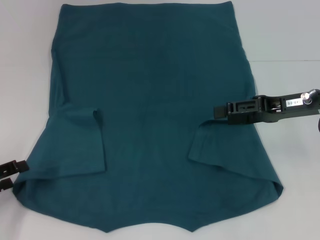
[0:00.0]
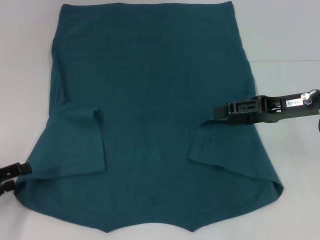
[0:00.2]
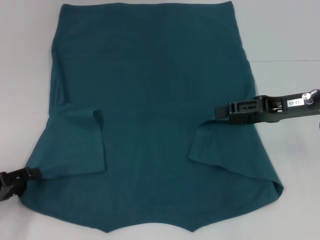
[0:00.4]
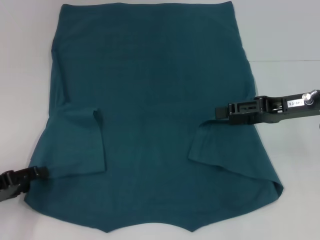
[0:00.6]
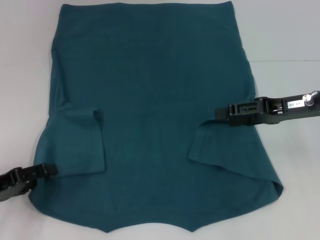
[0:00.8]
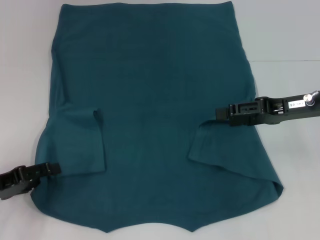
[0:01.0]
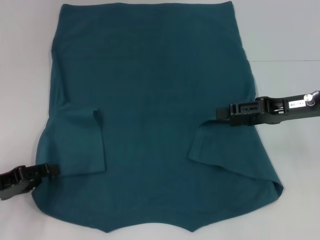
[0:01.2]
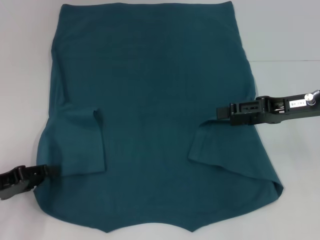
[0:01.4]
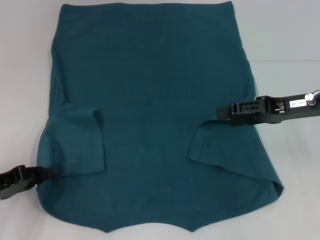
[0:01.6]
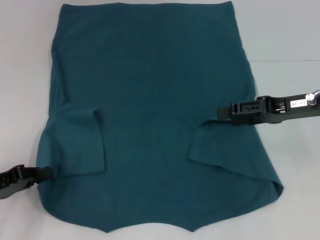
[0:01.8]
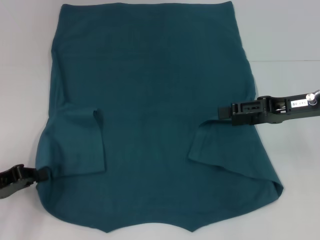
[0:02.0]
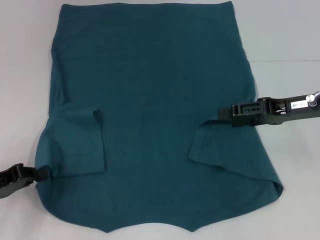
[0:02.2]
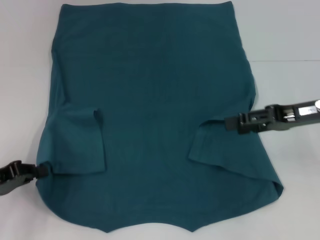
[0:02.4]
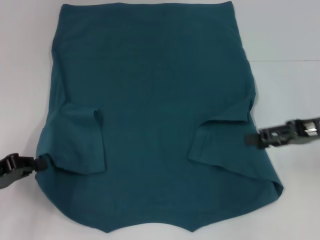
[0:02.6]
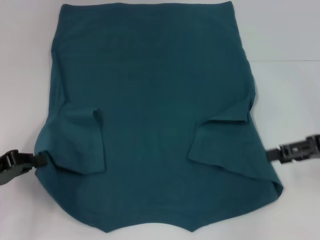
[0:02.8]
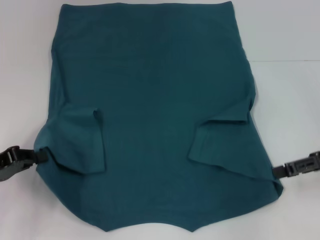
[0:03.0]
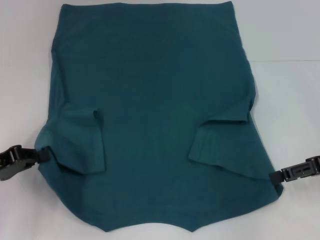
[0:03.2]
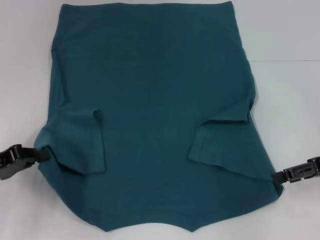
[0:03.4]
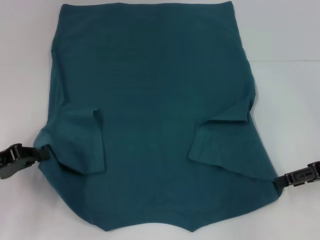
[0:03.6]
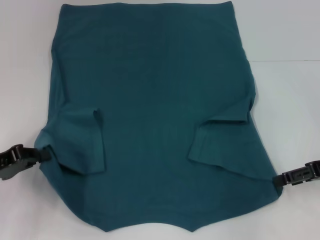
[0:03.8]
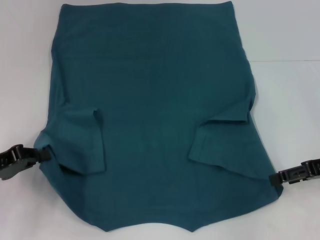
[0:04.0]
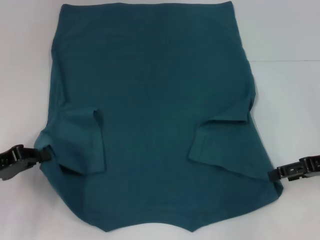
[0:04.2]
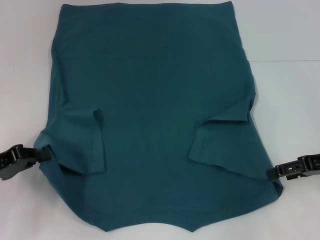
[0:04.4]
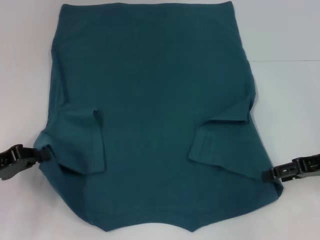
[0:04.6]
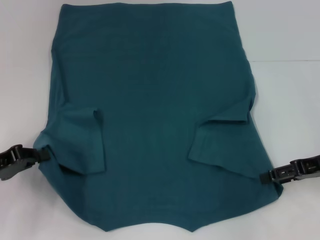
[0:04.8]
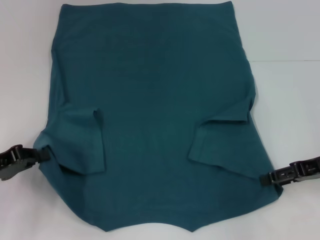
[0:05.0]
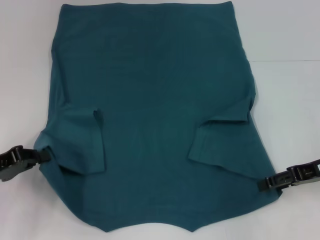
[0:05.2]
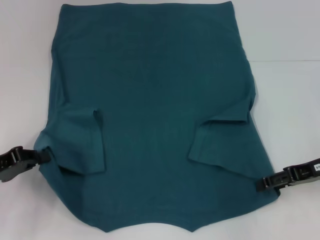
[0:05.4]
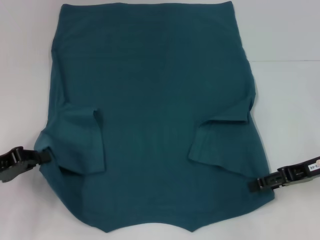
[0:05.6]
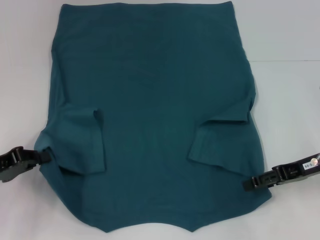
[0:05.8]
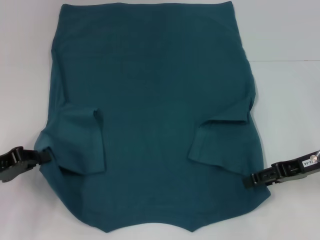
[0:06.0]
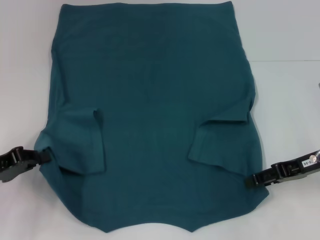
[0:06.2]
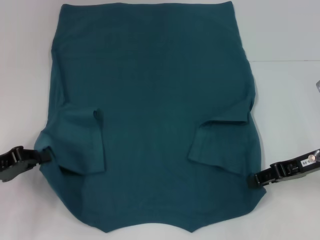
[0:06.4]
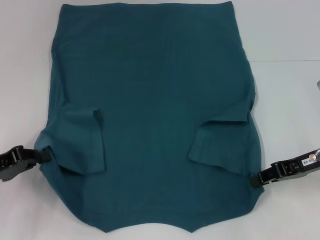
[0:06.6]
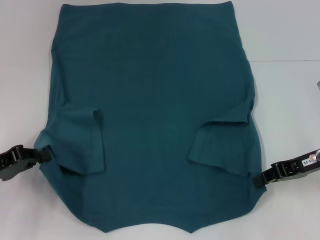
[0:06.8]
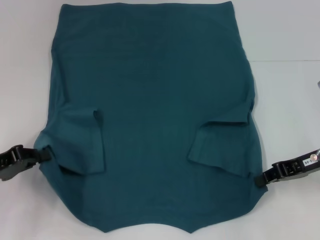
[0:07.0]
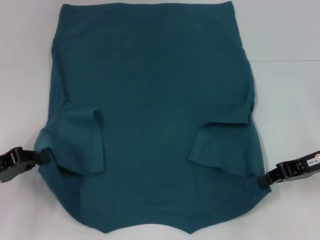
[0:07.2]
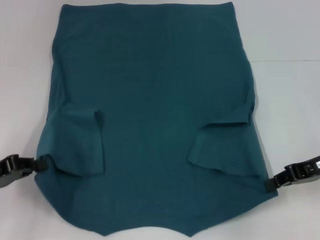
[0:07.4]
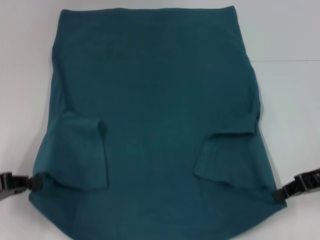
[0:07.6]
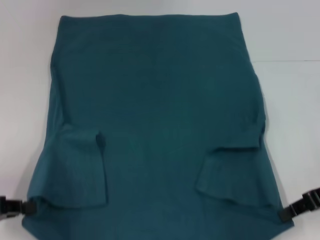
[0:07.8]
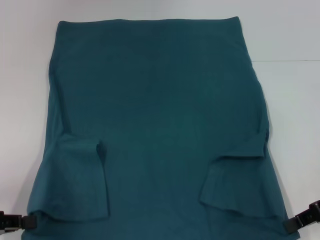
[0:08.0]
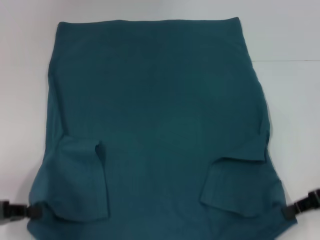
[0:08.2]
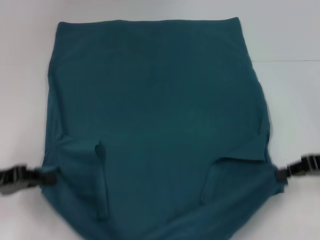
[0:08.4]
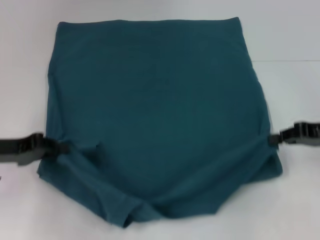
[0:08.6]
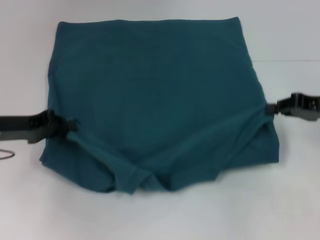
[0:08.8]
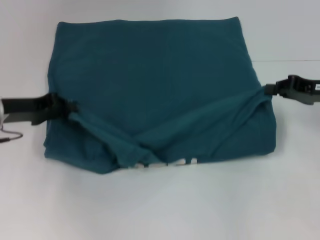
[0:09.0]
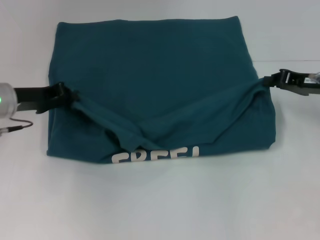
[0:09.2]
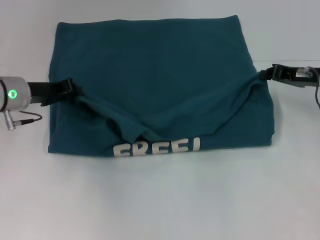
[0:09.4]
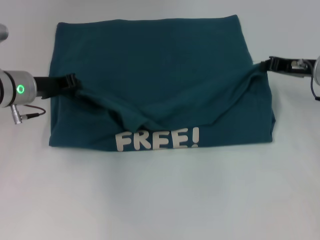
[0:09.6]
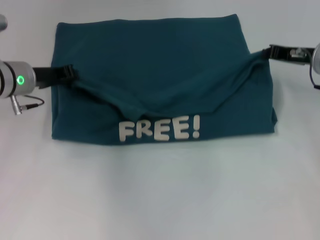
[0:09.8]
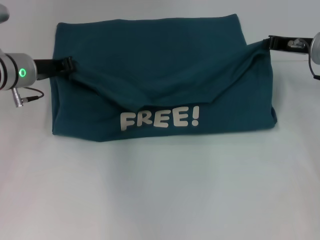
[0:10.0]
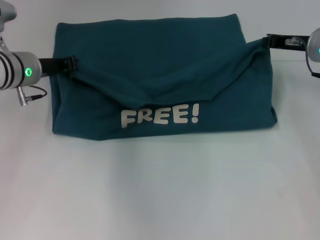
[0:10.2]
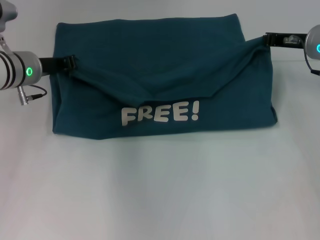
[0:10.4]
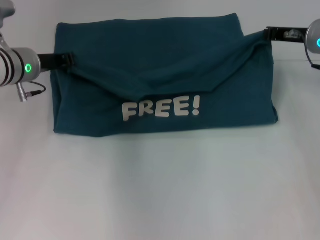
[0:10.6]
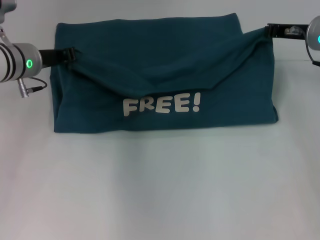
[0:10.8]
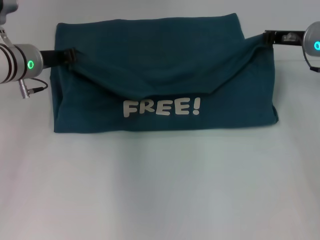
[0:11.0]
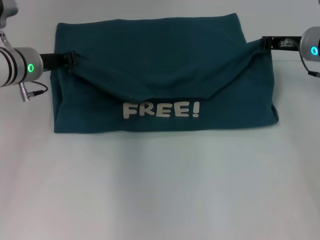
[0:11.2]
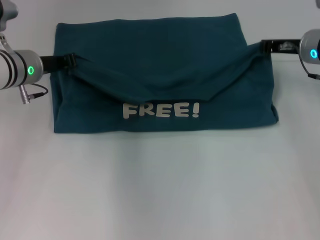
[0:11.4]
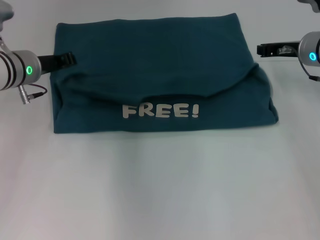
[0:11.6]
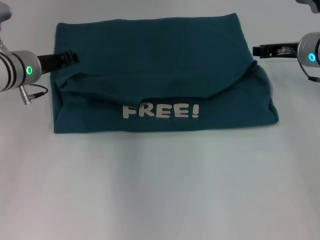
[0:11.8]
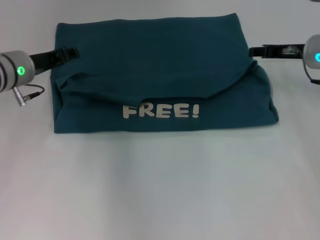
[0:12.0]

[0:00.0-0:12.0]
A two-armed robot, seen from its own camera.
Step, 0.0 to 2.4 s: Grab the bottom left corner with your left hand.
Step, 2.6 to 7.0 s: Grab the bottom right corner with your right hand.
0.0 to 1.6 s: The grippers make only small movements.
1.6 to 3.0 s: The left gripper closes up. The right gripper moves to the right, about 5 cm.
3.0 to 6.0 s: The grippers stay close to where they were, moving slightly.
6.0 to 7.6 s: The right gripper closes.
7.6 to 9.0 s: The left gripper travels forward and to the right by roughly 15 cm. Meanwhile the right gripper travels forward by about 5 cm.
9.0 to 10.4 s: The right gripper shifts roughly 10 cm forward and to the left. The left gripper heads forward and to the right, covering some 10 cm.
10.4 to 12.0 s: The right gripper opens its fingers.

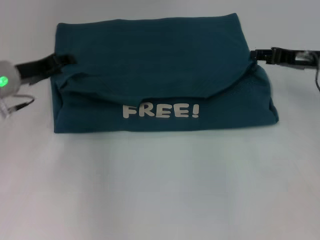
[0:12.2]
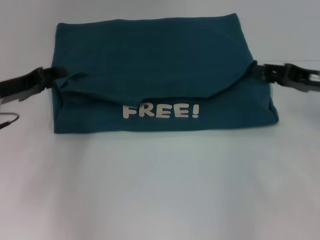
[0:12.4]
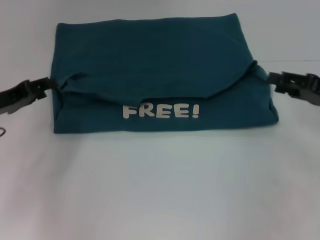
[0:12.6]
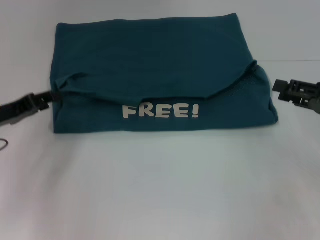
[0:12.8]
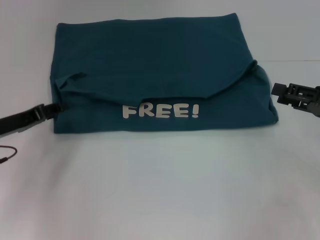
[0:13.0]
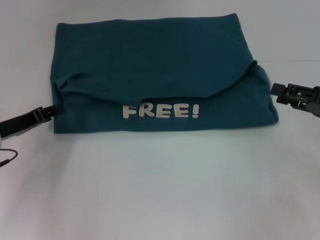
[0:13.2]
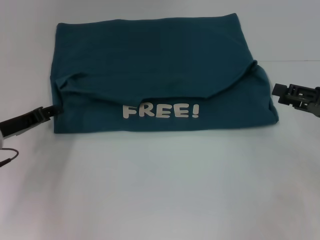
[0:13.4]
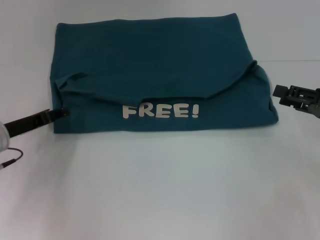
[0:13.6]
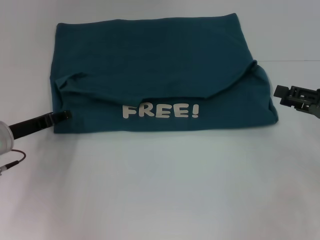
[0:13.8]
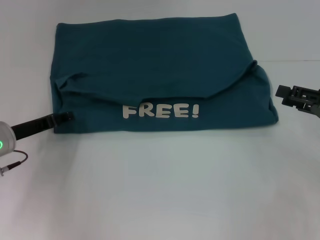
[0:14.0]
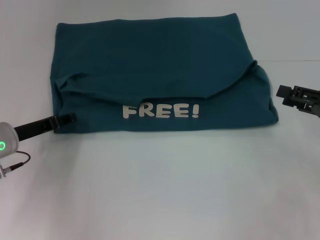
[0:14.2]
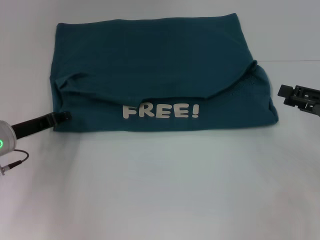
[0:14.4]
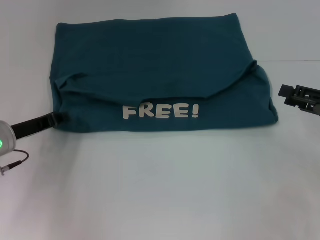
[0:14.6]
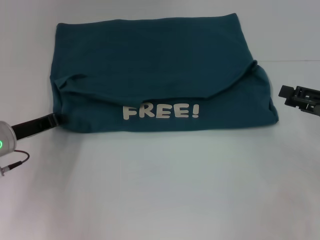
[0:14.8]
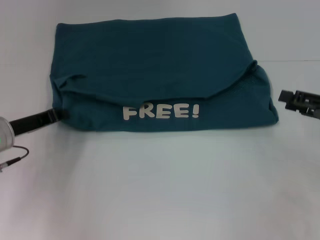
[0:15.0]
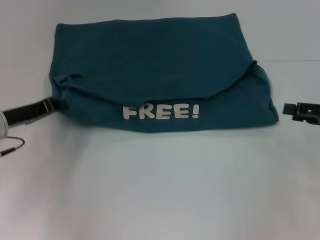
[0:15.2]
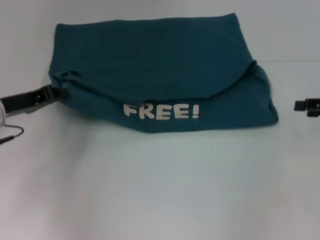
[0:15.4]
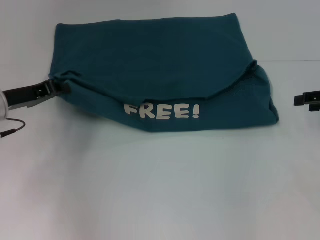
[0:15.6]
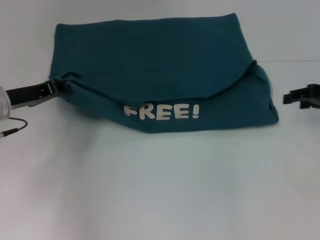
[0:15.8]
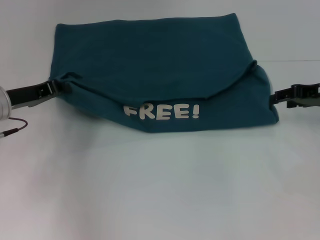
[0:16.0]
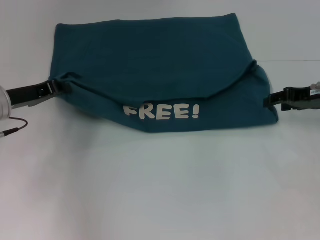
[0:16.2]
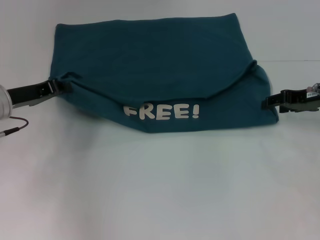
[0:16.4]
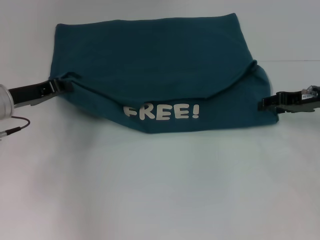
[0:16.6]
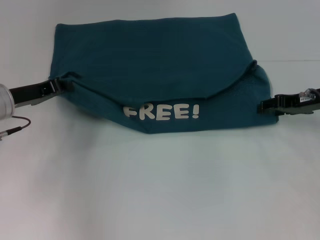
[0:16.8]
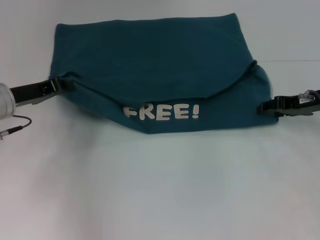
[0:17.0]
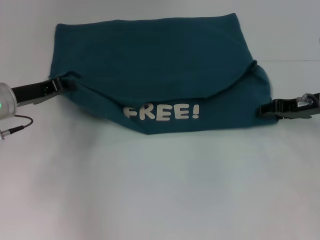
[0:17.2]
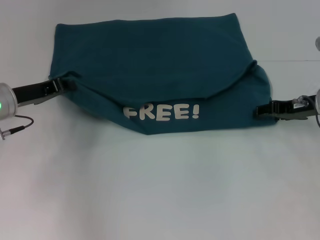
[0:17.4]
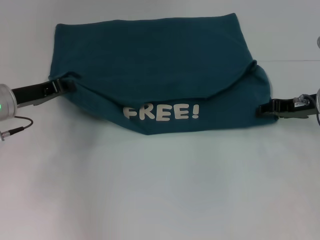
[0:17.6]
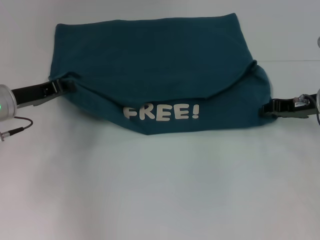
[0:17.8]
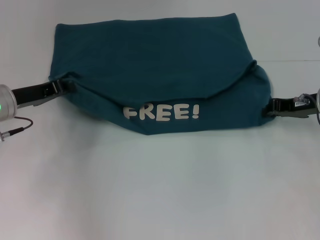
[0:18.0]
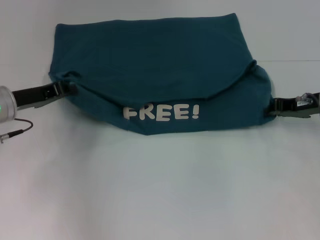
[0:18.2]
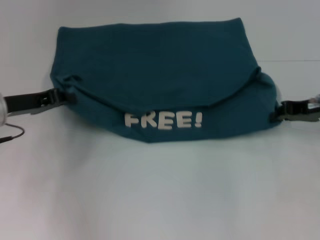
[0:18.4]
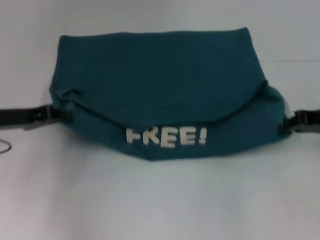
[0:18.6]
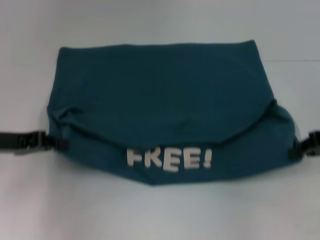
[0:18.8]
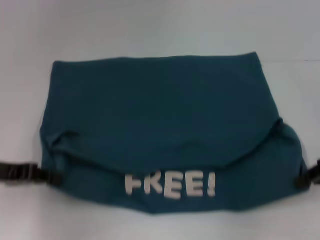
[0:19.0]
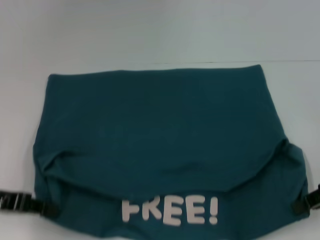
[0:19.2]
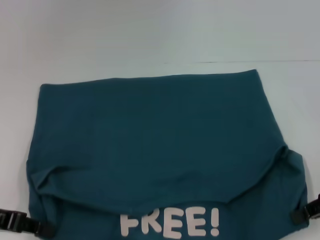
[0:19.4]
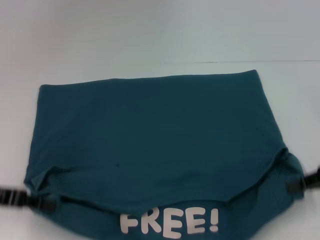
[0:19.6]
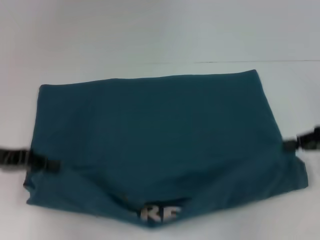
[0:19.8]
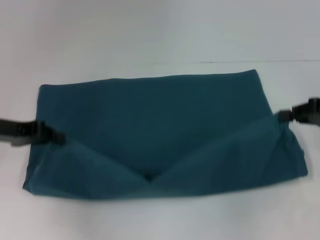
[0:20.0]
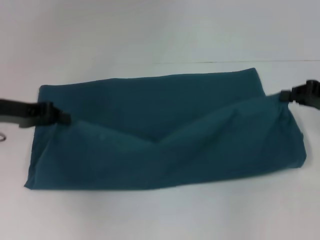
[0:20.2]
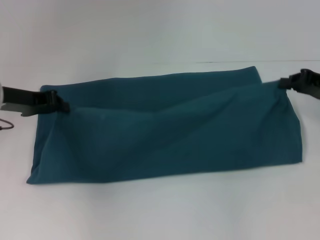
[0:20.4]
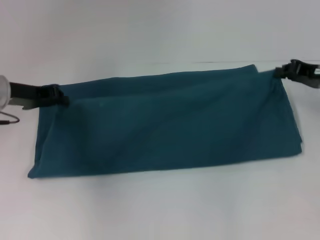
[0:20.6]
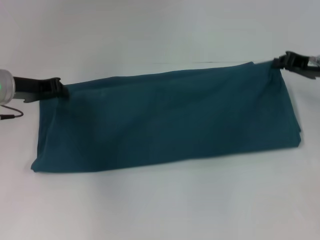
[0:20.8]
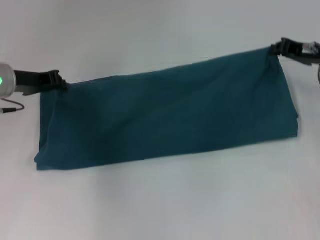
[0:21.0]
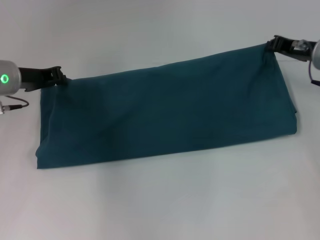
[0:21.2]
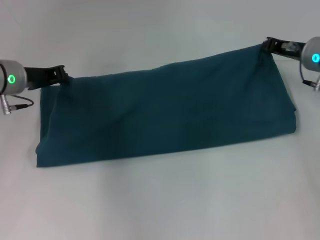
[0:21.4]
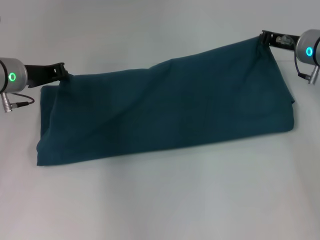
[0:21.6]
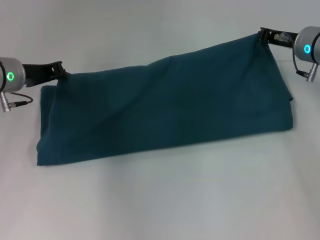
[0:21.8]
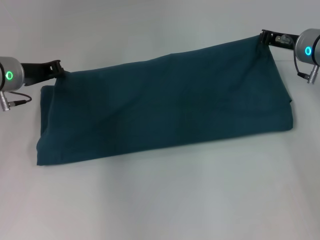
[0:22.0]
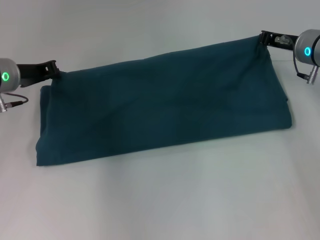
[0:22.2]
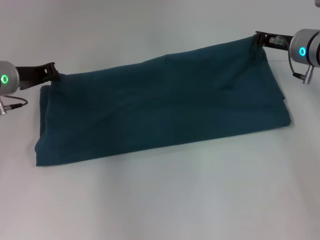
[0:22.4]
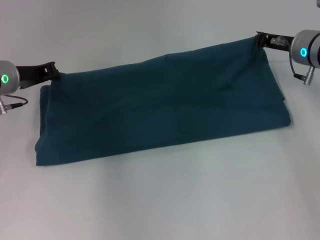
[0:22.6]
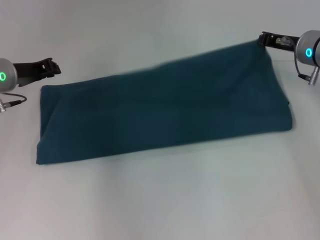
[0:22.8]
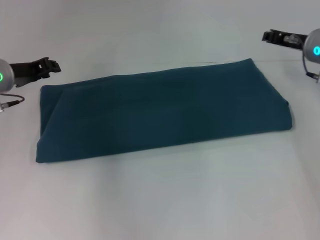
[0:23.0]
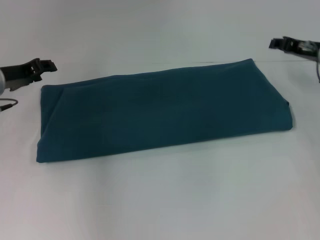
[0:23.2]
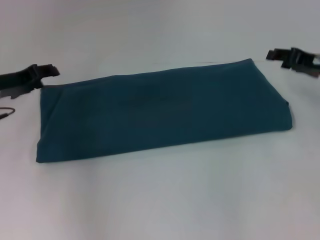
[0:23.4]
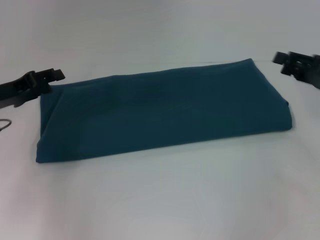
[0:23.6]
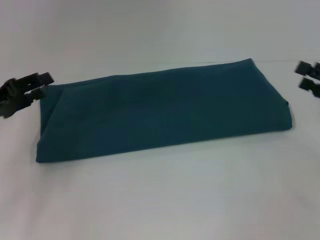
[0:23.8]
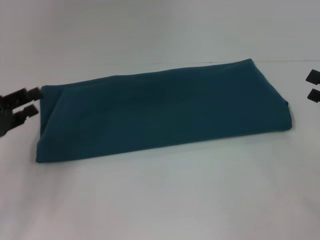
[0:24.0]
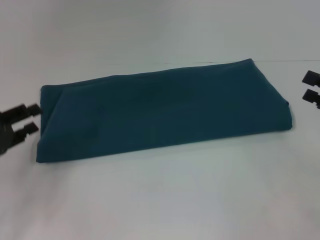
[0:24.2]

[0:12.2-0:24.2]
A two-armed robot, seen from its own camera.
Step, 12.6 to 19.2 s: Pull the clothes with your left hand.
Step, 12.6 to 19.2 s: Pull the clothes with your right hand.
Step, 19.4 to 23.6 s: Fold the clothes to the right.
12.2 to 13.8 s: The left gripper moves downward and backward, about 10 cm; the right gripper is displaced backward and to the right by roughly 10 cm.
13.8 to 15.2 s: The left gripper closes up.
15.2 to 16.6 s: The right gripper heads forward and to the left, covering roughly 10 cm.
16.6 to 18.2 s: The right gripper closes.
18.2 to 19.8 s: The right gripper travels backward and to the right by roughly 10 cm; the left gripper shifts about 10 cm backward.
19.8 to 21.2 s: The right gripper heads forward and to the left, covering approximately 15 cm. Meanwhile the left gripper moves forward and to the right, some 15 cm.
21.2 to 22.6 s: The grippers make only small movements.
22.6 to 24.2 s: The right gripper travels backward and to the right by roughly 20 cm, and opens its fingers. The left gripper travels backward and to the left by some 15 cm, and opens its fingers.
